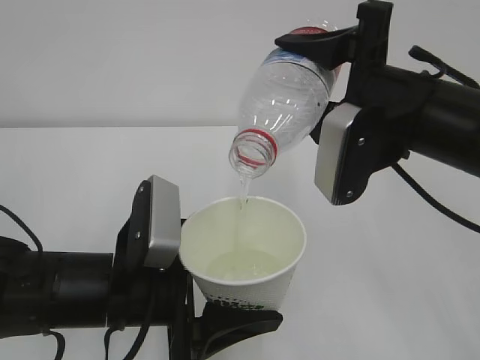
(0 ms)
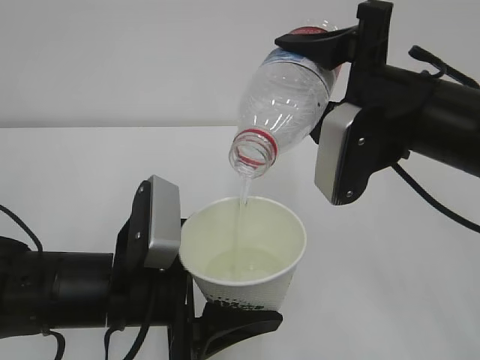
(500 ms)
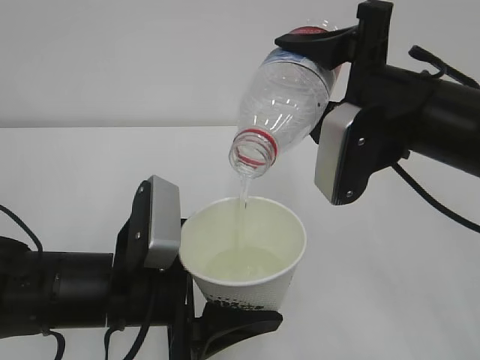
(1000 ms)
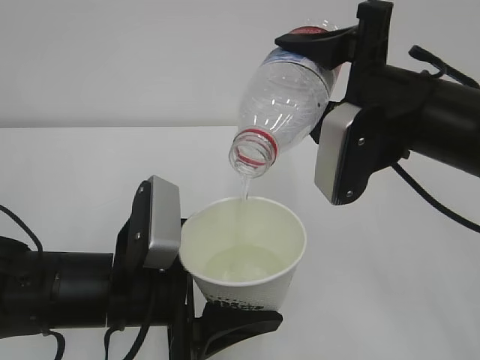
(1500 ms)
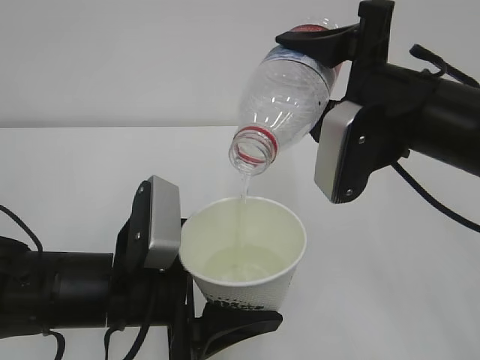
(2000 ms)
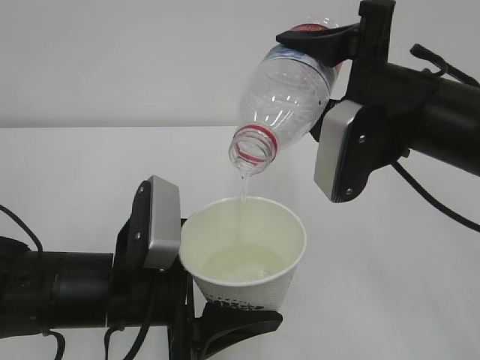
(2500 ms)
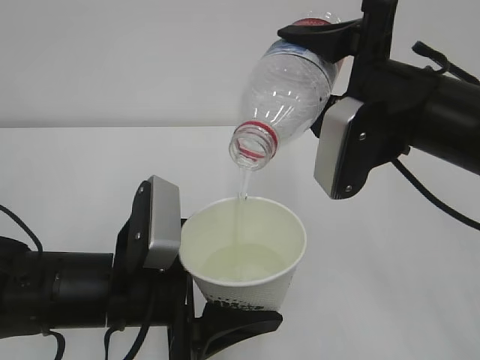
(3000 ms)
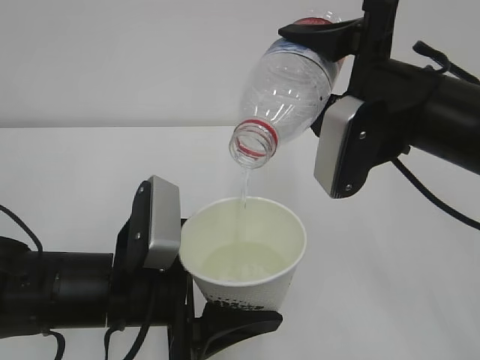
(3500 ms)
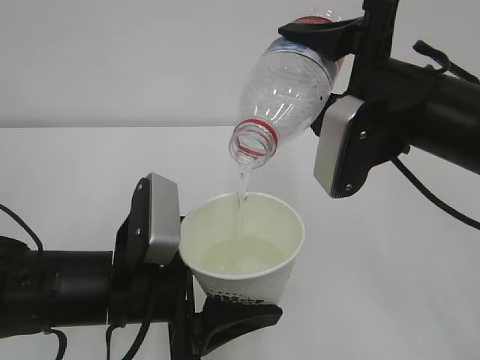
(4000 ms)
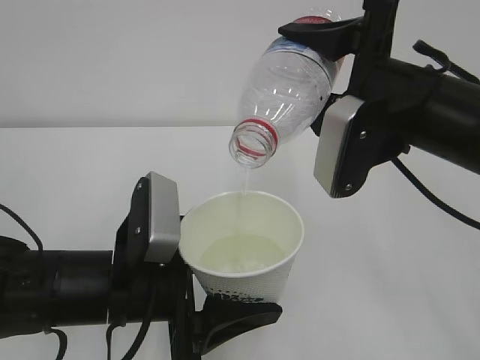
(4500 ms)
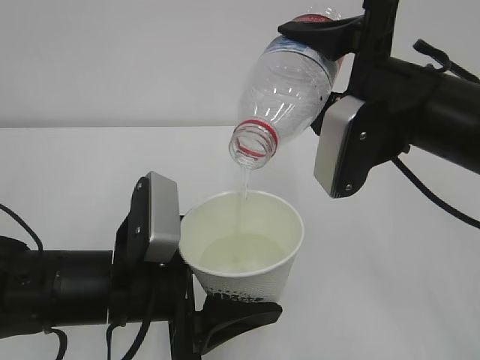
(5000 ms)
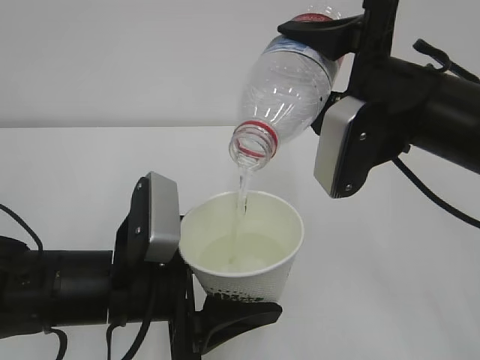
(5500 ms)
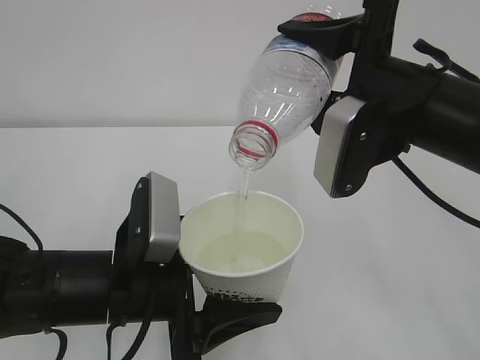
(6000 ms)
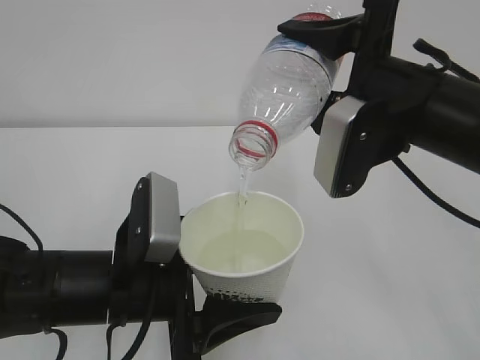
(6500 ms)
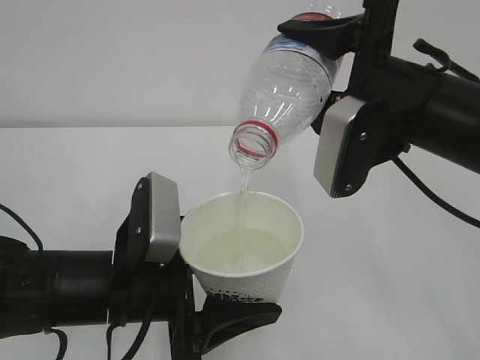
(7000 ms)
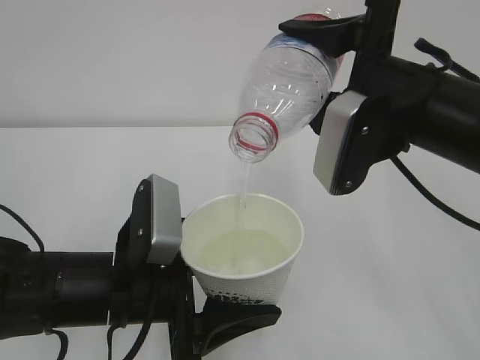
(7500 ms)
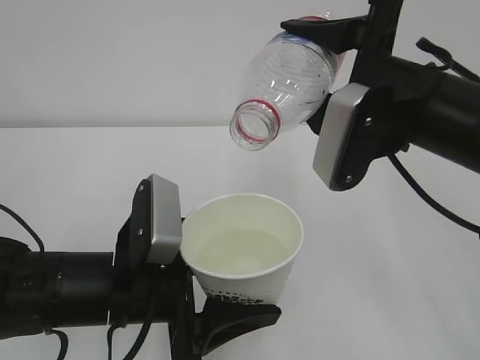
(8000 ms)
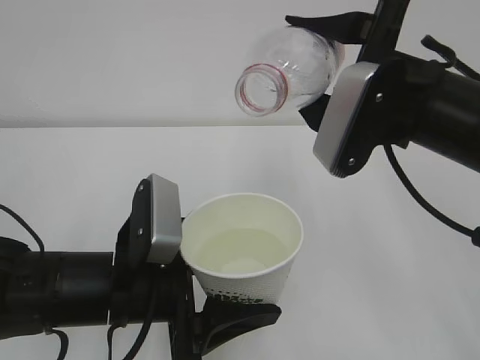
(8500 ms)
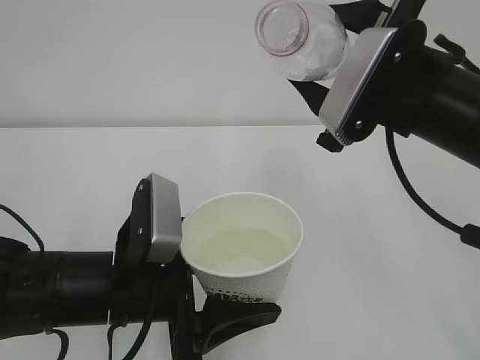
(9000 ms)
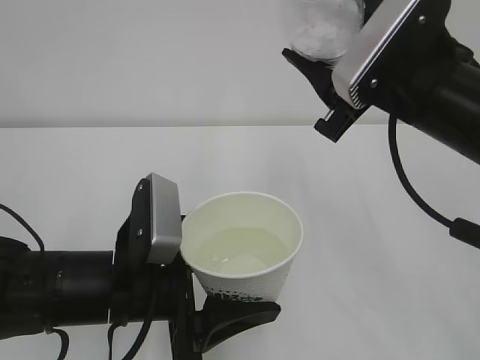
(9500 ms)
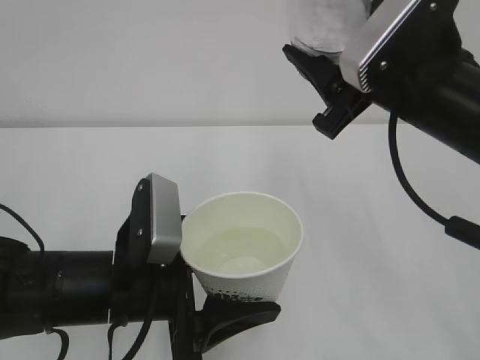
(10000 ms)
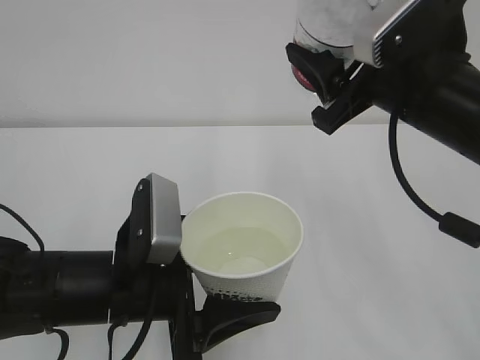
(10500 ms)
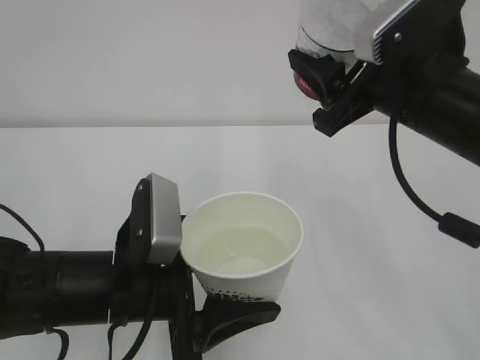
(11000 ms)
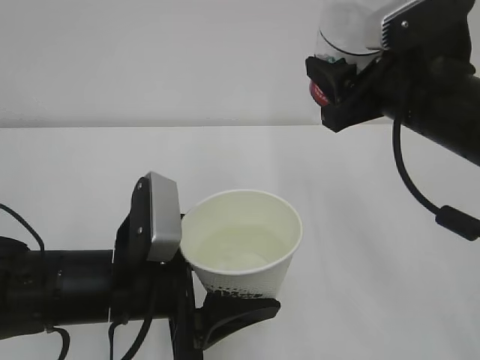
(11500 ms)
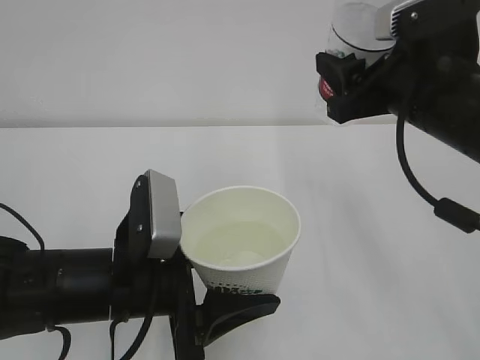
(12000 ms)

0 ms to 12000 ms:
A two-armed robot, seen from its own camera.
0 ms to 6000 ms: Both grippers stay put.
6000 ms to 8000 ms: The grippers make only small movements.

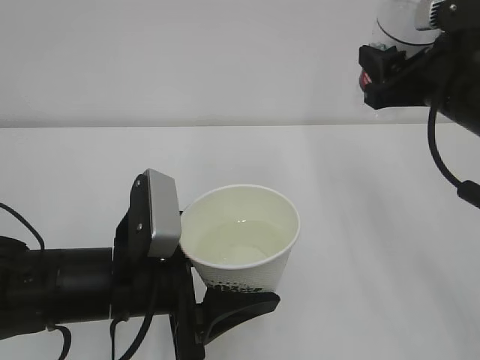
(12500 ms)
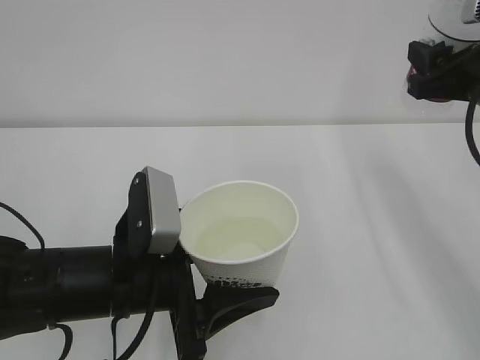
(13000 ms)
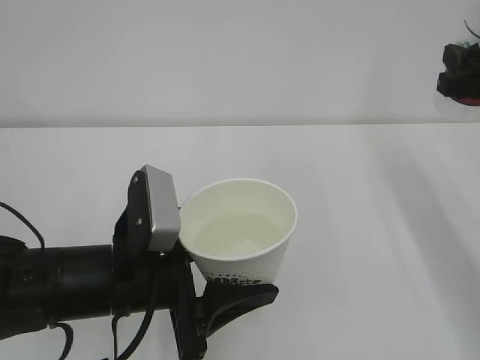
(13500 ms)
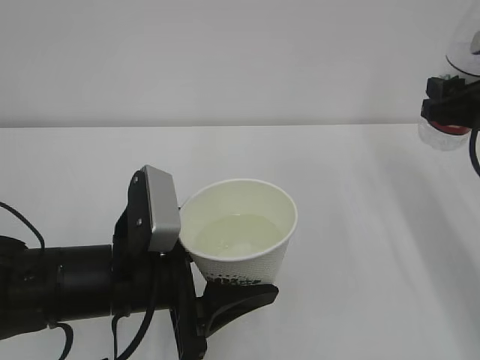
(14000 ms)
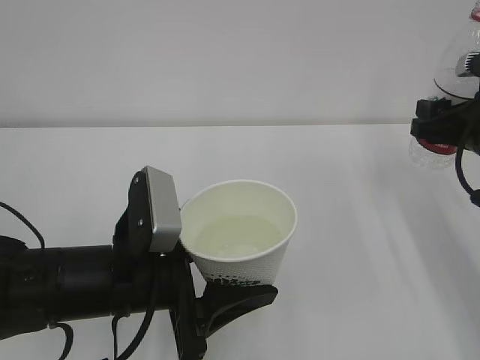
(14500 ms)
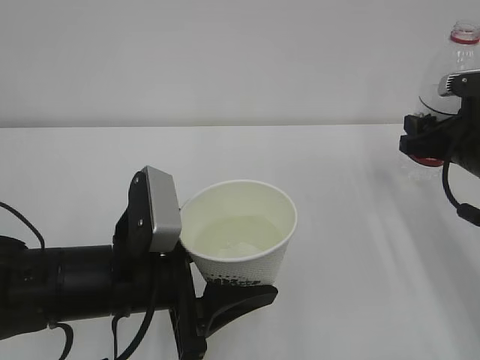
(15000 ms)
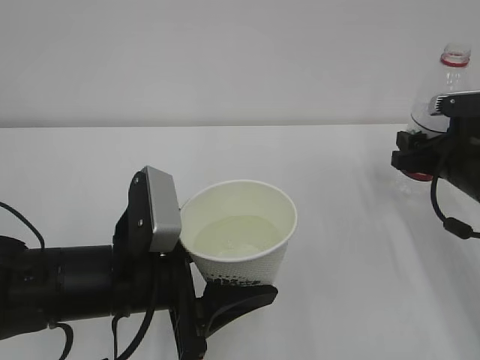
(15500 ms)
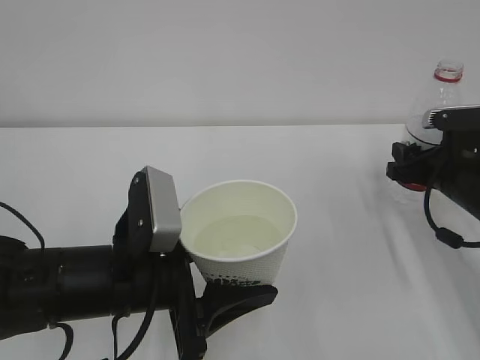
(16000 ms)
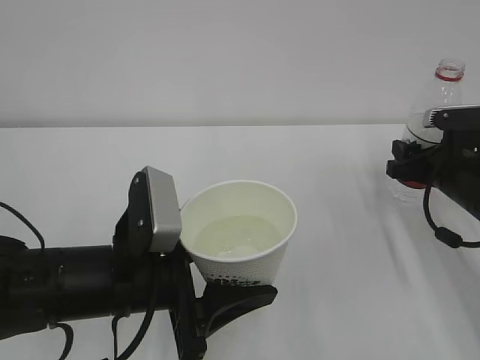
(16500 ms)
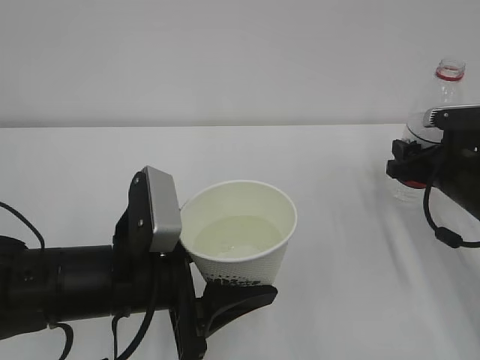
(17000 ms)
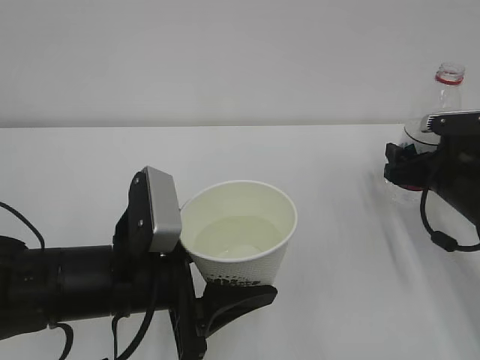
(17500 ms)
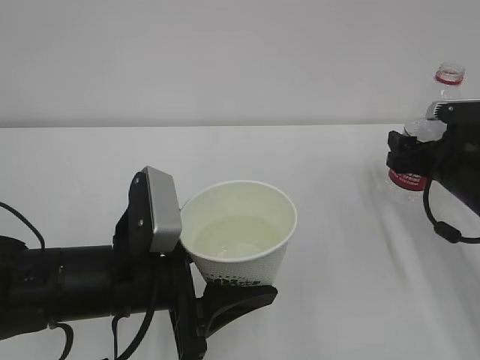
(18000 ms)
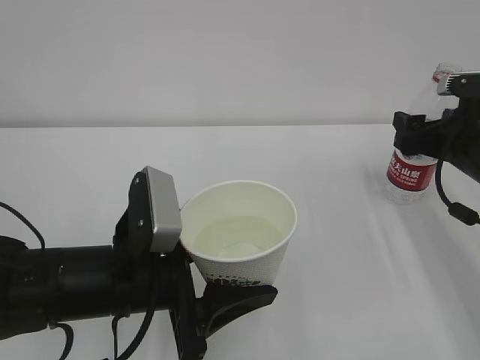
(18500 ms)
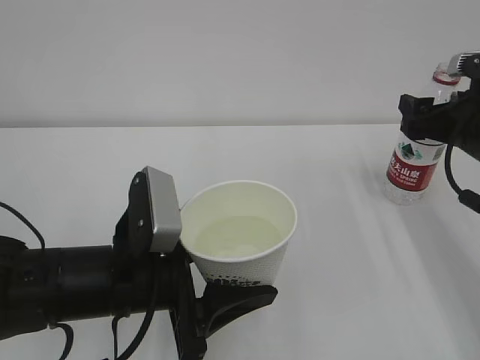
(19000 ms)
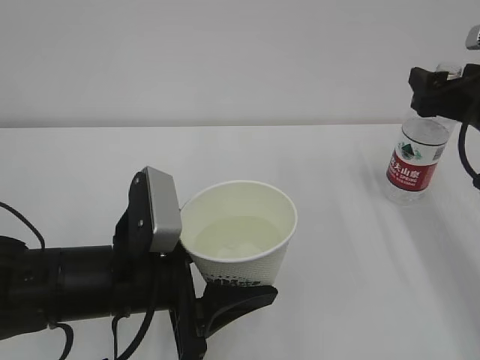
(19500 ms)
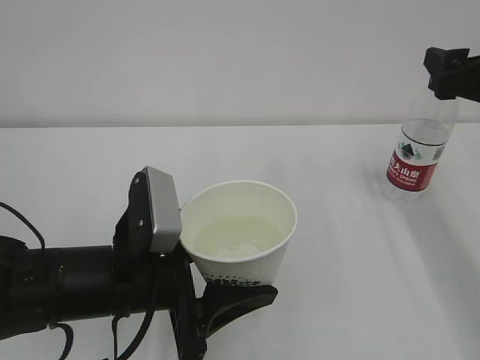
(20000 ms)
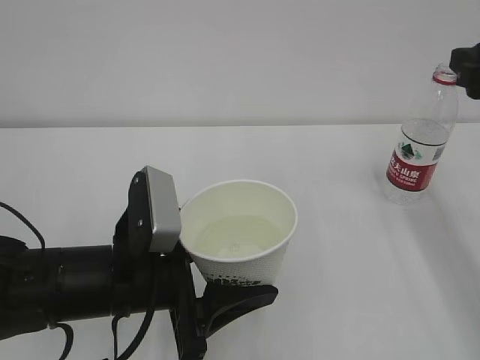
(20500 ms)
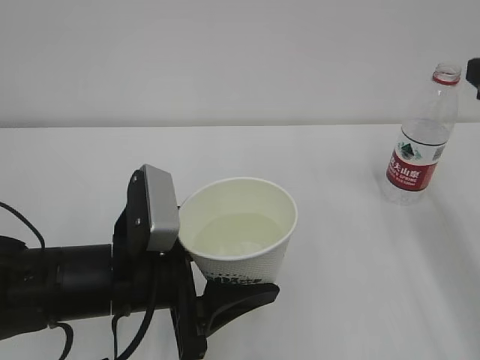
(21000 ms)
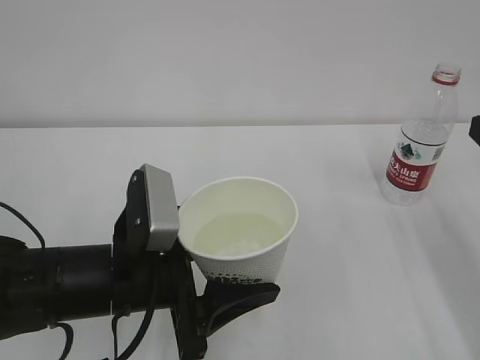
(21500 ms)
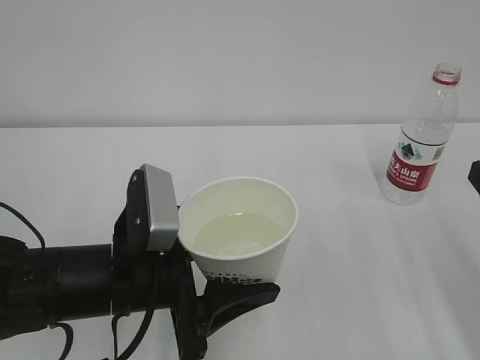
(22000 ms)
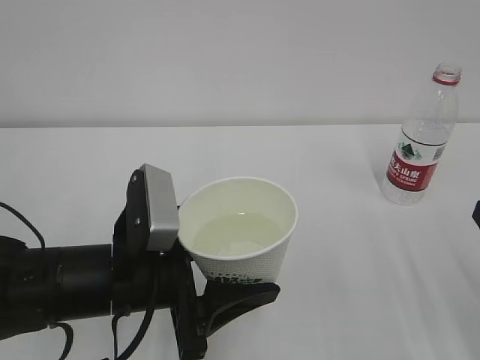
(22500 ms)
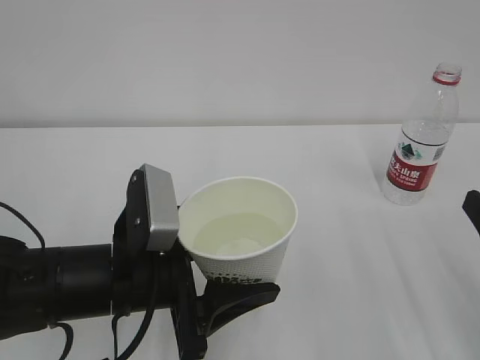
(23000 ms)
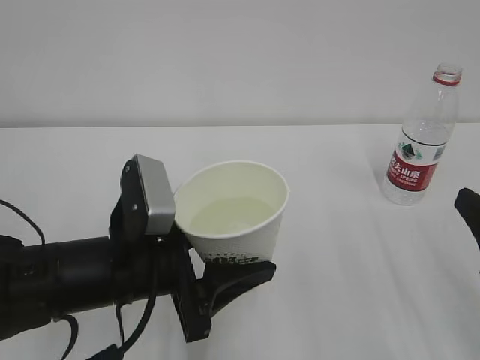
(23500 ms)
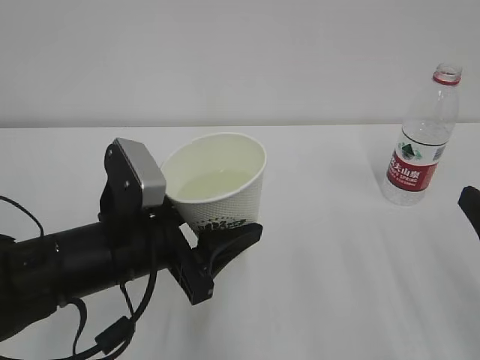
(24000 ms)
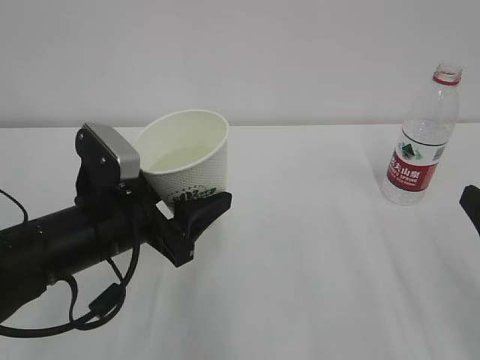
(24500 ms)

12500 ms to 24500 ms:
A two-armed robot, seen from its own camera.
12500 ms to 14500 ms: The right gripper is displaced downward and to the right by about 10 cm.
14500 ms to 16500 ms: The right gripper travels downward by roughly 5 cm.
16500 ms to 18500 ms: The right gripper opens its fingers.
18500 ms to 20500 ms: The right gripper goes approximately 15 cm upward and backward, and closes up.
20500 ms to 22500 ms: The right gripper heads backward and downward, covering about 15 cm.
22500 ms to 24500 ms: The left gripper shifts by about 5 cm.

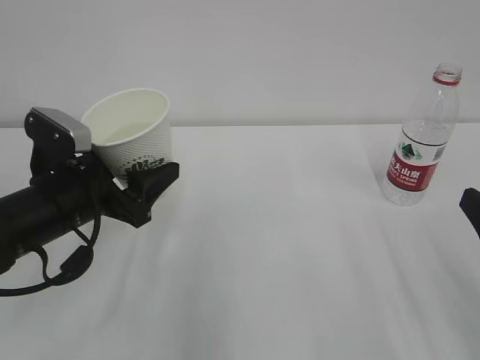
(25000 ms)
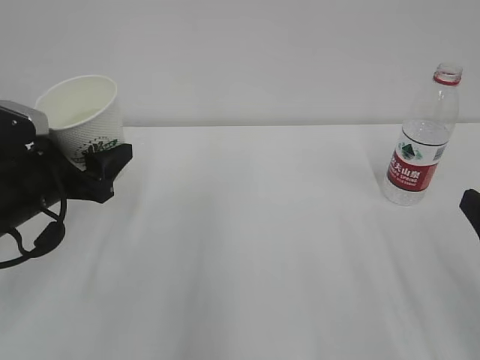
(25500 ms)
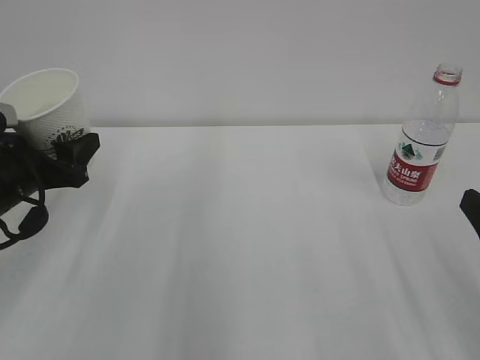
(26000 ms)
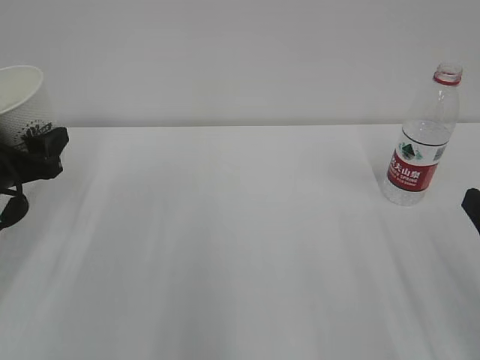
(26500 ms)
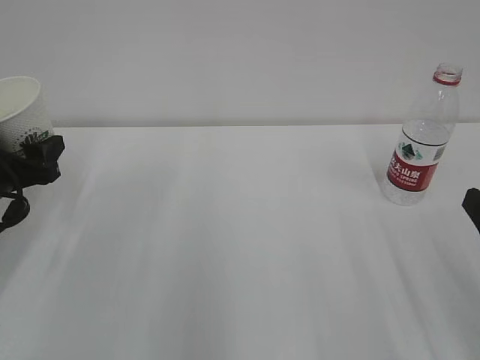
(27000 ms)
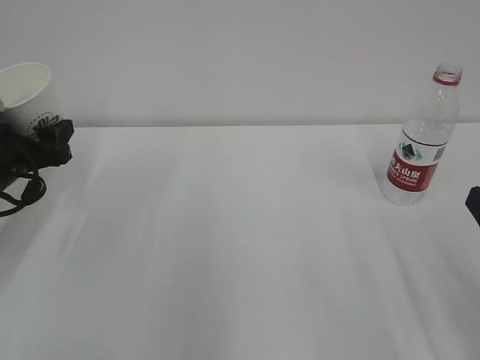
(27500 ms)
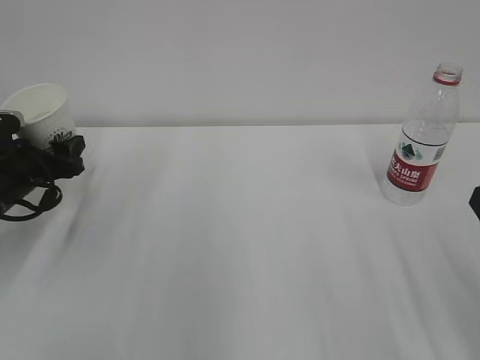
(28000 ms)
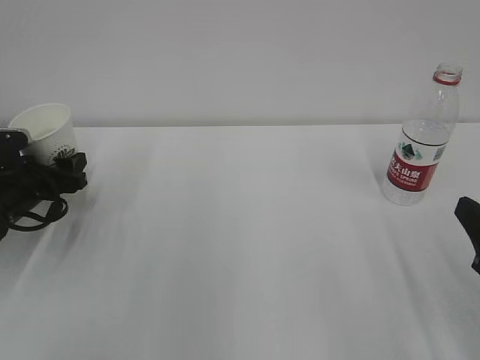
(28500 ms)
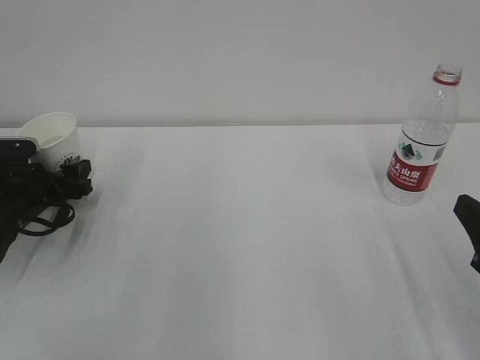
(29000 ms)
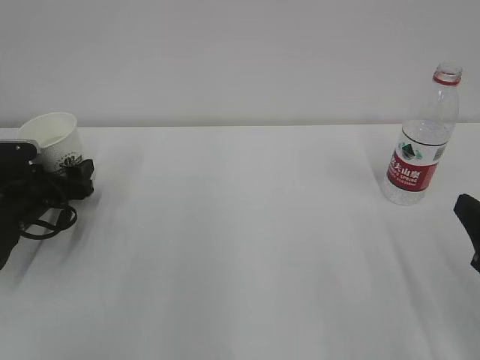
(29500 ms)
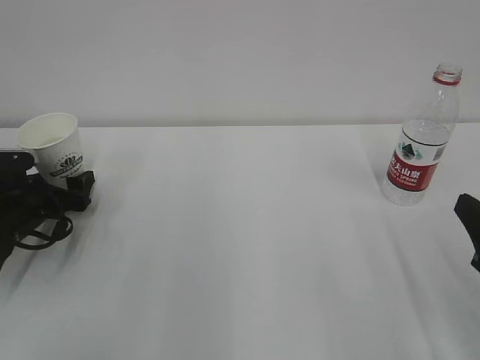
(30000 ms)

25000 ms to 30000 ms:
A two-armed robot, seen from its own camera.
25000 ms to 27500 ms: The left gripper travels to the left and forward by approximately 15 cm.
27500 ms to 30000 ms: The left gripper heads downward, covering some 10 cm, and opens.
